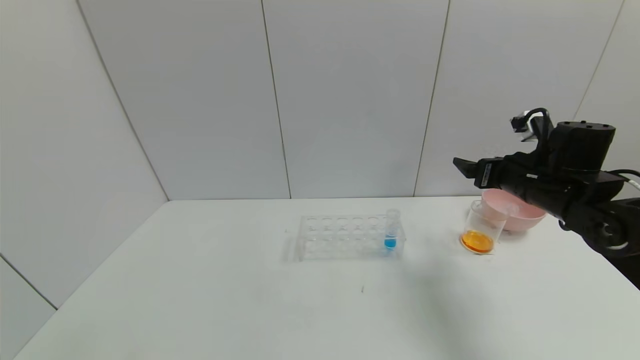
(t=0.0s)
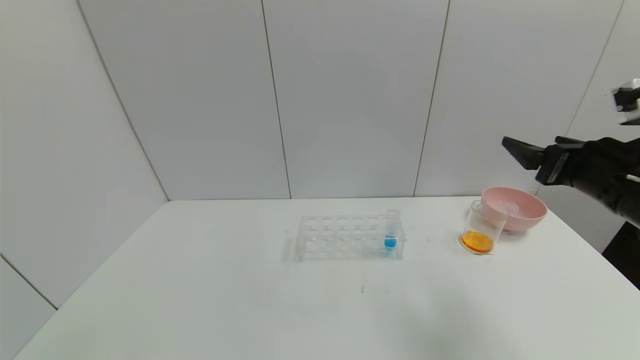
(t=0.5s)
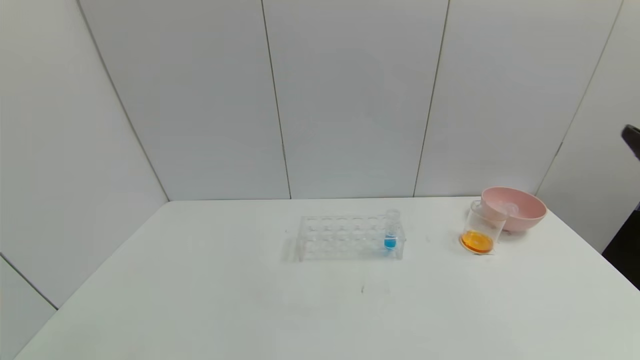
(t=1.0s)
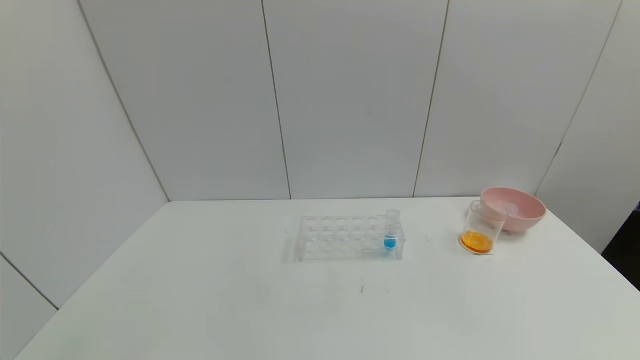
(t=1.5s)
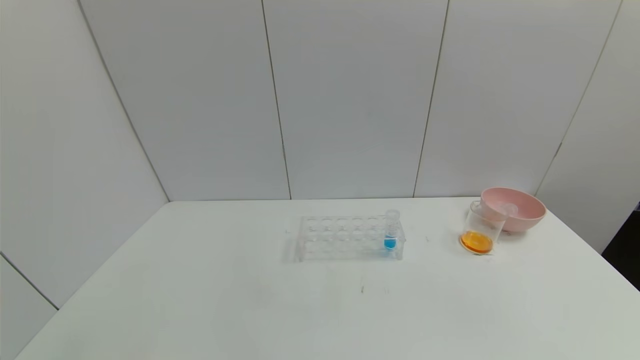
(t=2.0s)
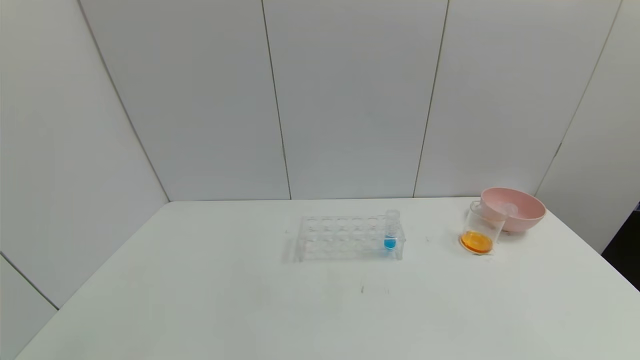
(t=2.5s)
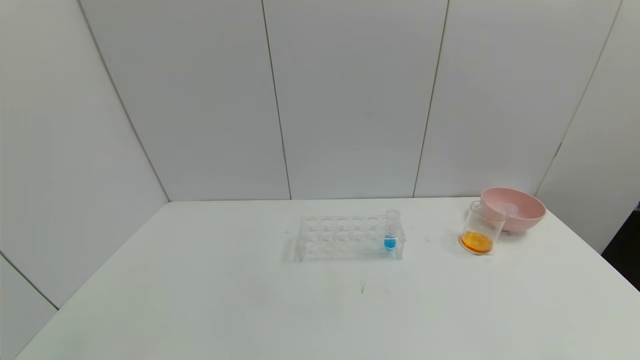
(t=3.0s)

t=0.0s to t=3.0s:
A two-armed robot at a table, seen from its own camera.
Task of the whole recording: pick up the test tube with yellow pigment and the test tube with red pigment by grippers and pour them into the beaker.
t=0.0s to t=1.5s: The right gripper goes about 35 cm backward.
